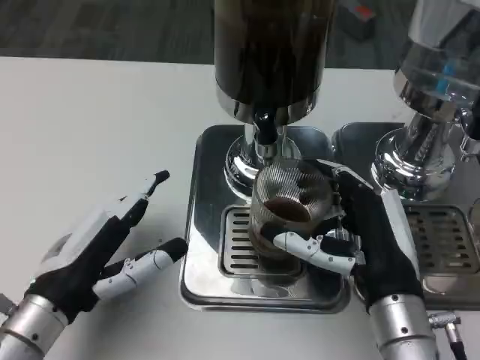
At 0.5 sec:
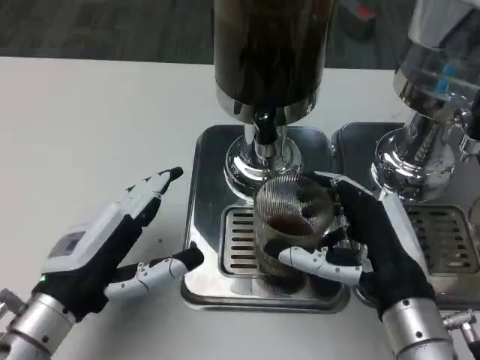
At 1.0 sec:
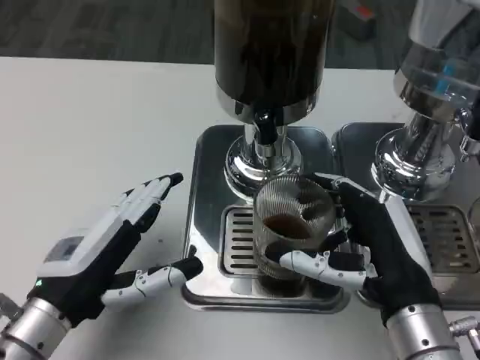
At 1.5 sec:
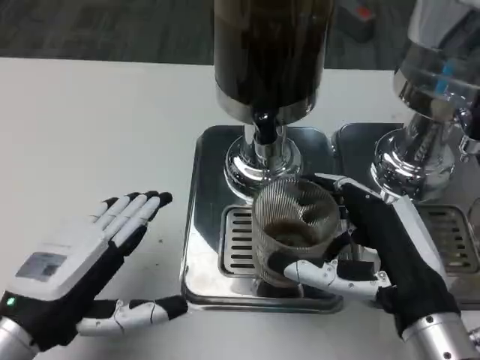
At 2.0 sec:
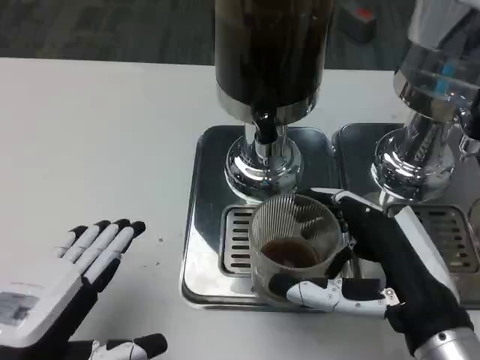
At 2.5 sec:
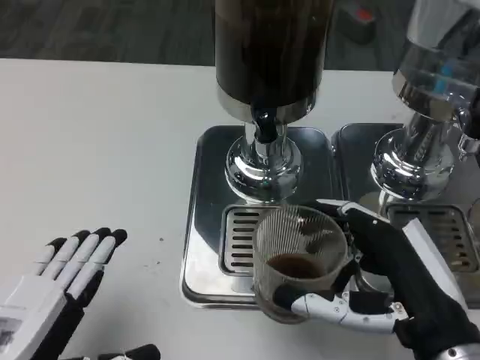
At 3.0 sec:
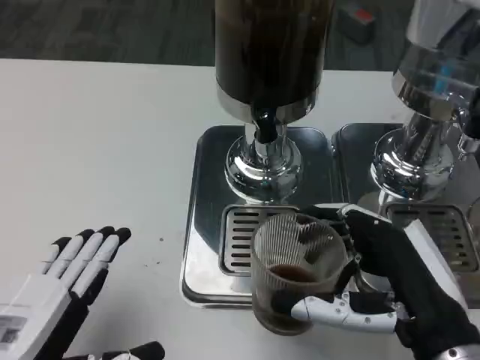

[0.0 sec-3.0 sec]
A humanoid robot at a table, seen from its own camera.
Task of the whole recording: Grasp the cup under the faucet to collect the drink, then remove the cup.
0.0 sec to 1.5 sec: The right hand shifts by some 5 cm.
1.5 sec to 3.0 sec: The left hand heads backward, covering approximately 5 cm.
